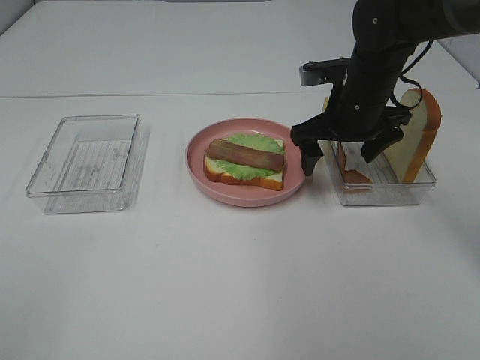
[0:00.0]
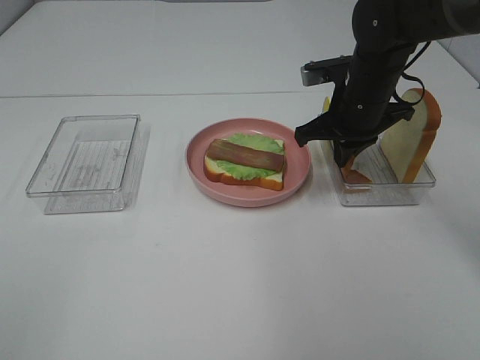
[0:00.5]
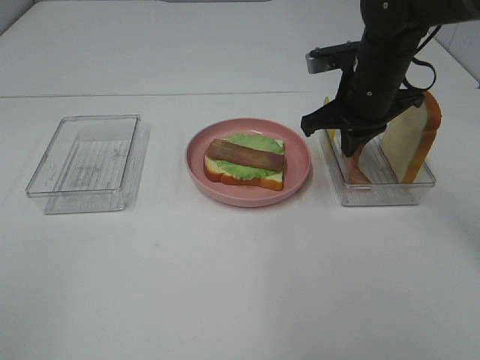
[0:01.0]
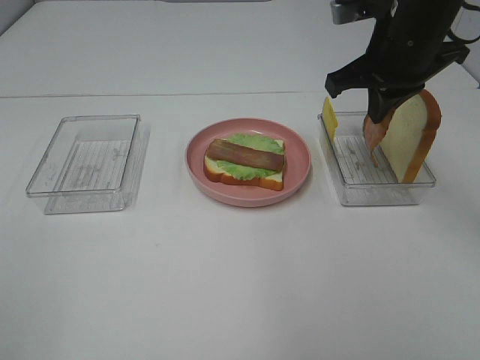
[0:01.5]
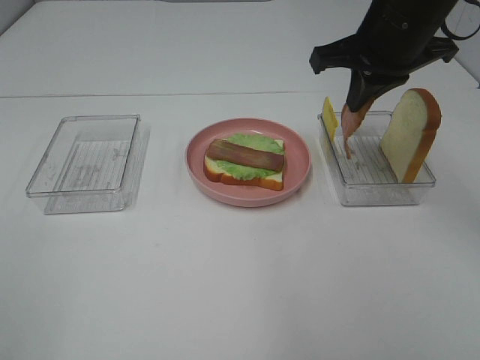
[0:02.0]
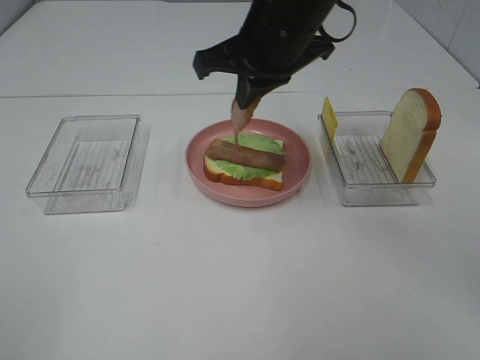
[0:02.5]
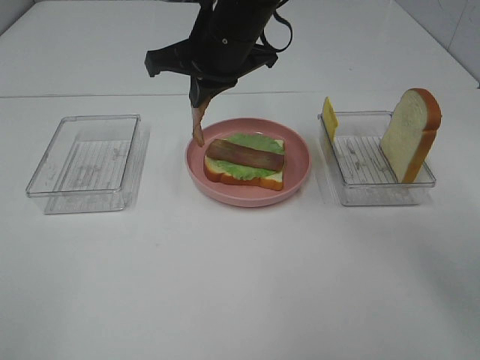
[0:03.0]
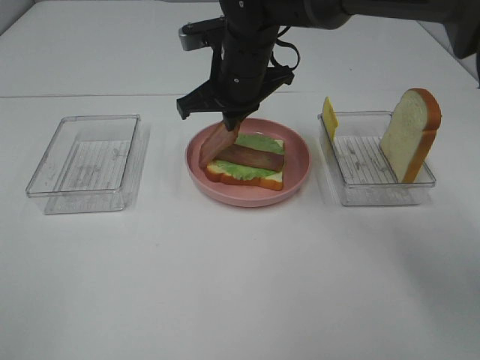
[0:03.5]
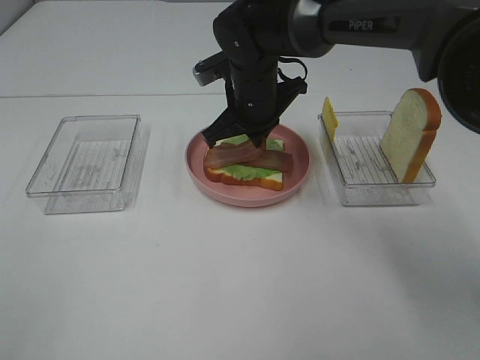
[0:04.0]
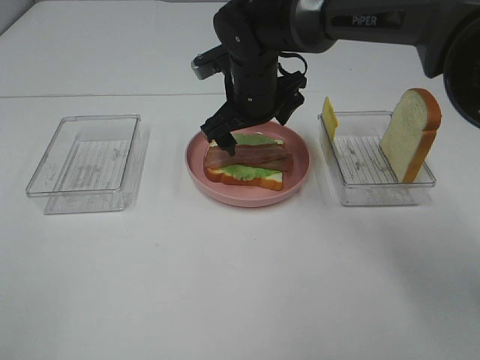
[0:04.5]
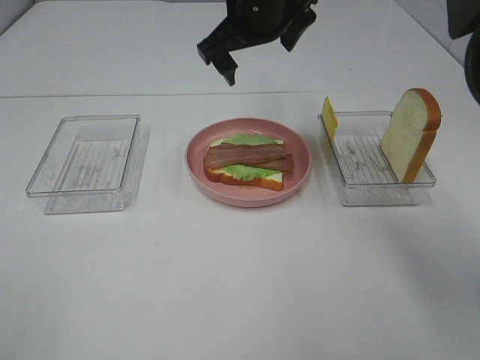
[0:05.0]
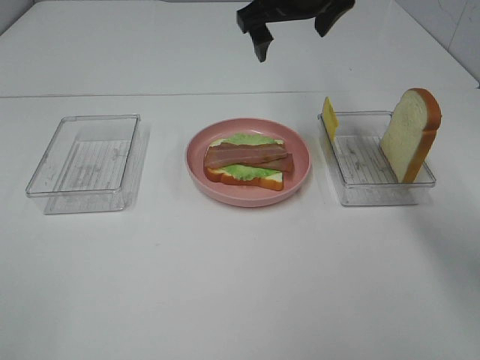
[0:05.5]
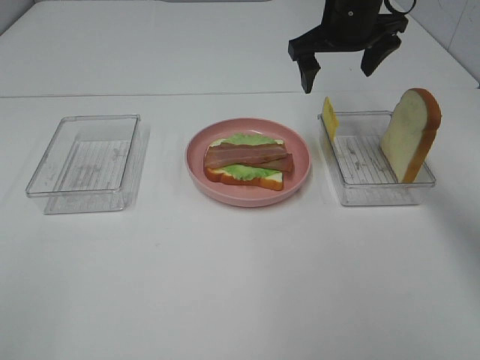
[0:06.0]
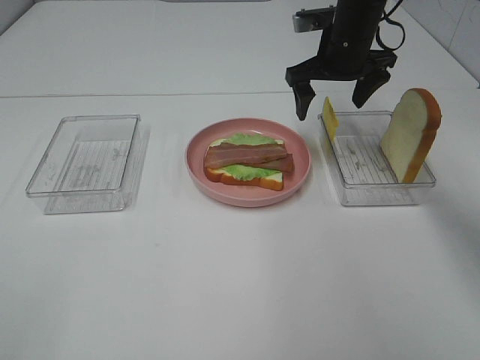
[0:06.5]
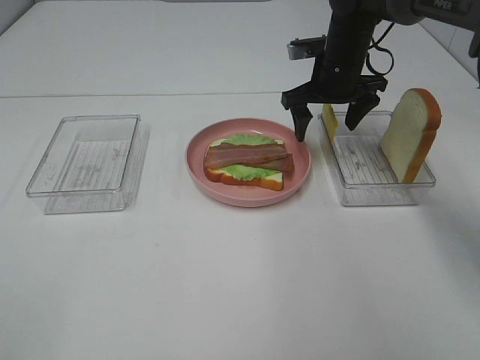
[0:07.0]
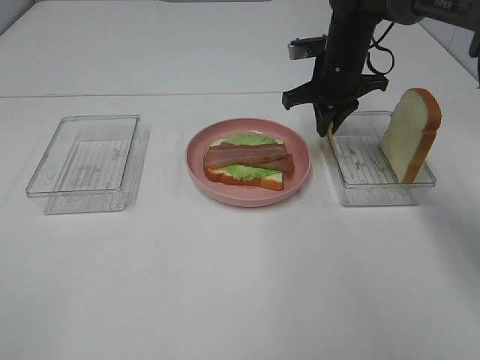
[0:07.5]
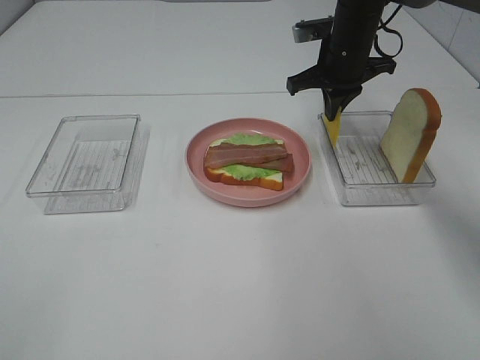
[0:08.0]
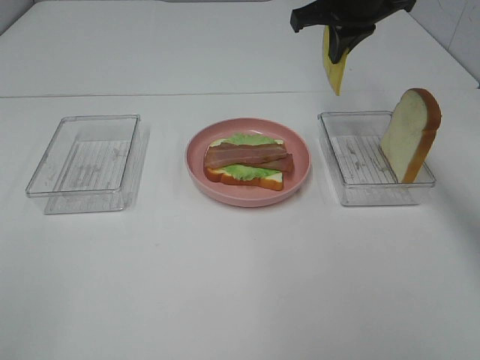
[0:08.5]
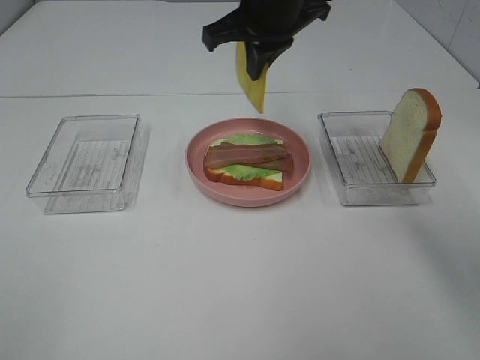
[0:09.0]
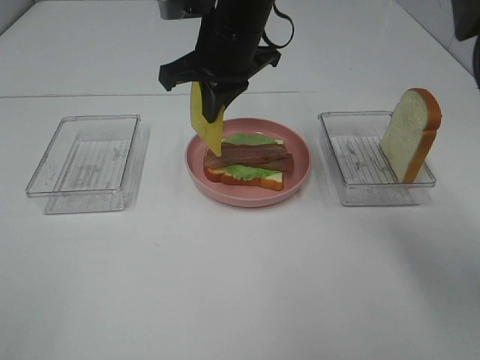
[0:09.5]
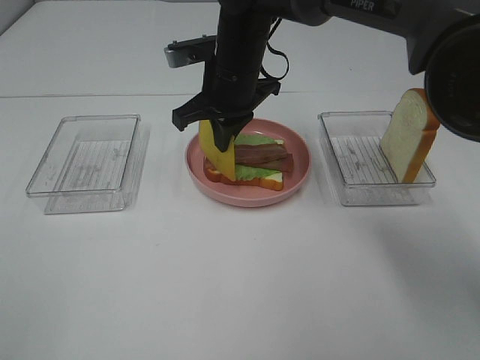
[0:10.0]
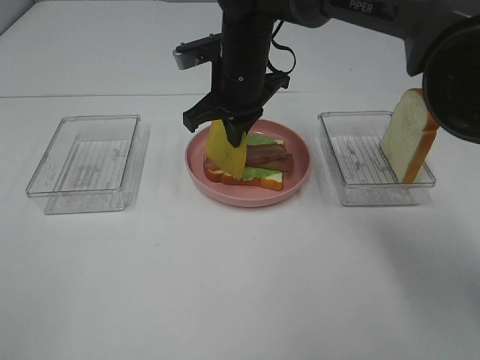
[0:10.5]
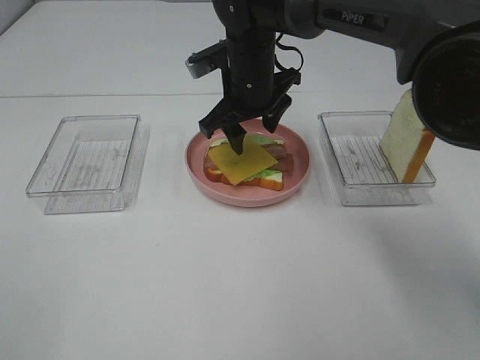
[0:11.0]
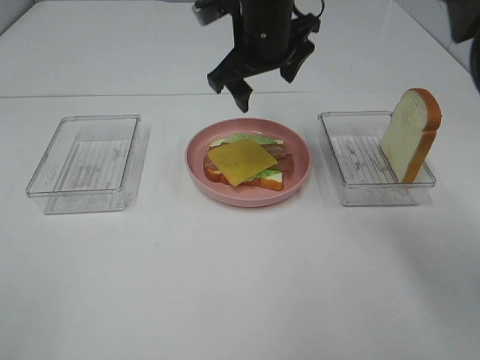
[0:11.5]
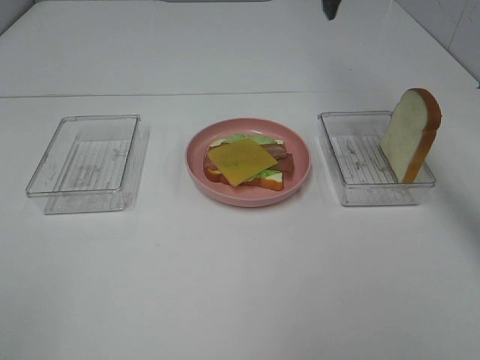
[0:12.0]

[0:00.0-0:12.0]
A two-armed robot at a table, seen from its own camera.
Task of the whole recording: Make sandwiches.
Step, 0:01.0 to 0:04.5: Right hand:place bacon on bacon.
Step, 0:05.0 to 0:08.0: Right hand:grab the cheese slice.
Step, 0:08.5 to 0:11.0: Right hand:place the cheese slice on top of the bacon.
0:00.0 to 0:02.0: The right gripper shifts roughly 10 cm upward, and closes its fingers.
0:02.0 to 0:04.0: The right gripper moves to the left, downward and forward, about 20 cm.
0:04.0 to 0:06.0: The right gripper moves to the right, upward and forward, some 15 cm, and opens up.
0:06.0 to 0:08.0: The right gripper closes.
0:08.0 to 0:10.0: The right gripper shifts about 15 cm to the left and backward.
0:10.0 to 0:12.0: The right gripper shifts roughly 20 cm upward and to the right, and opens.

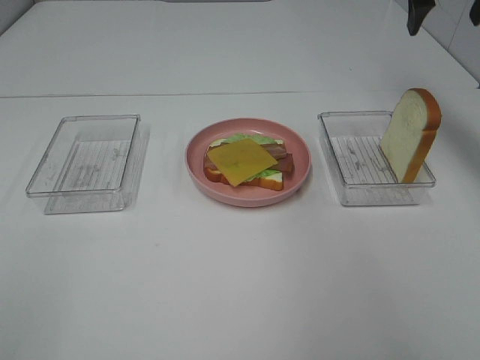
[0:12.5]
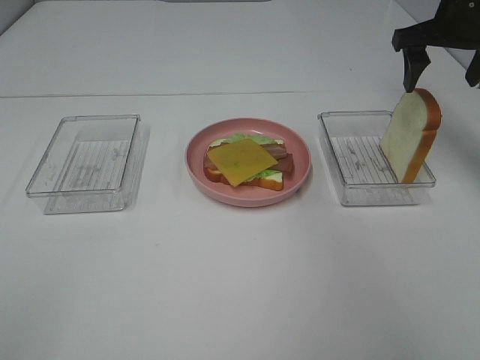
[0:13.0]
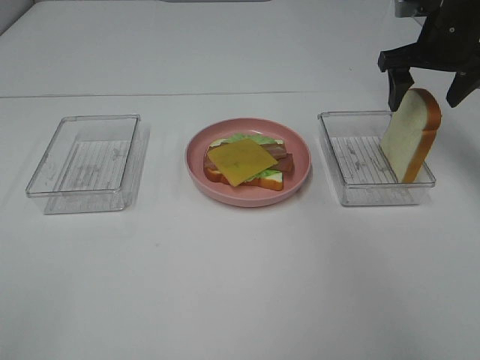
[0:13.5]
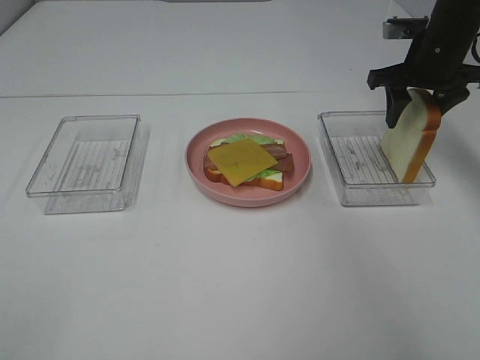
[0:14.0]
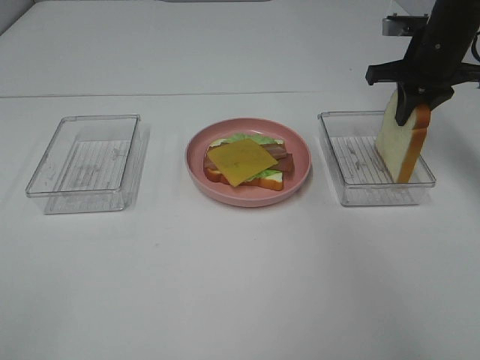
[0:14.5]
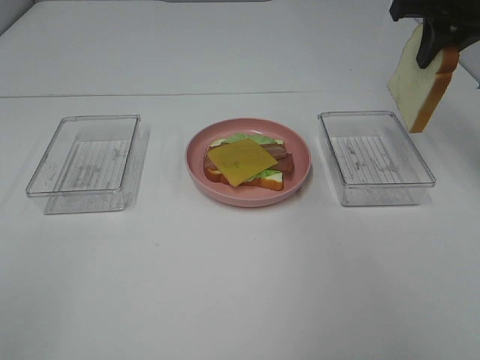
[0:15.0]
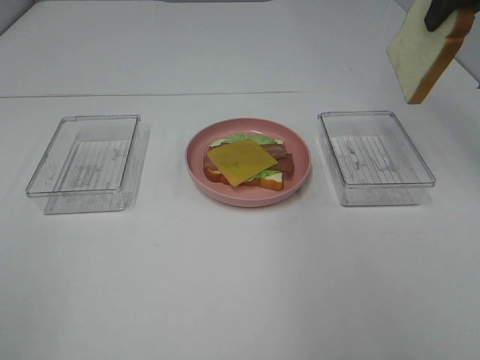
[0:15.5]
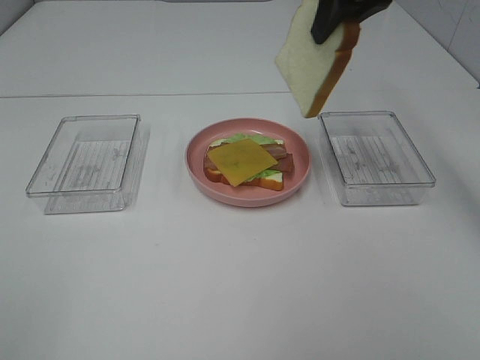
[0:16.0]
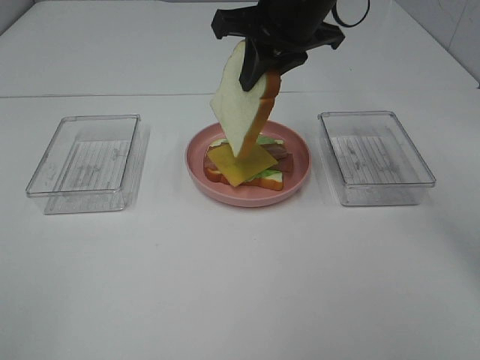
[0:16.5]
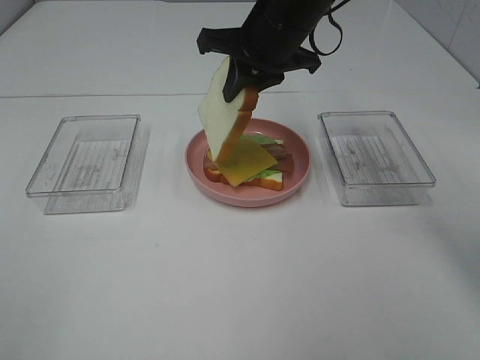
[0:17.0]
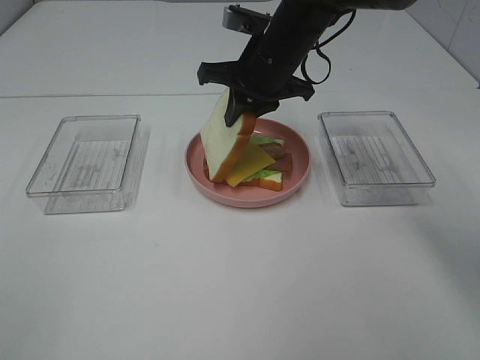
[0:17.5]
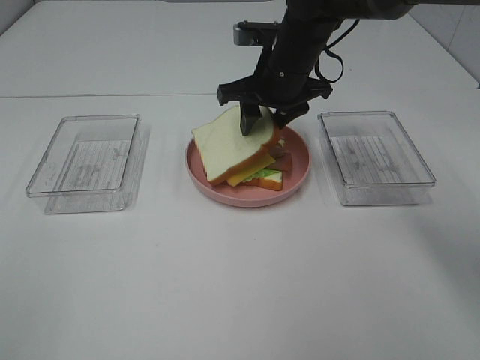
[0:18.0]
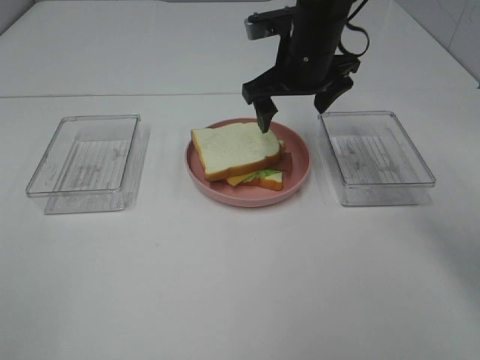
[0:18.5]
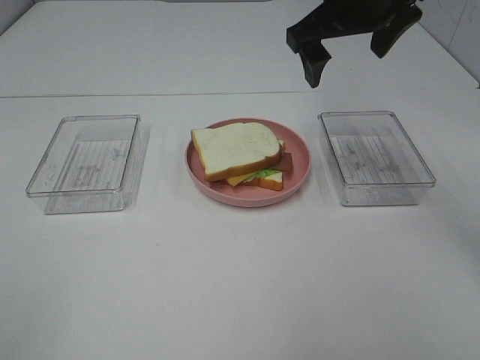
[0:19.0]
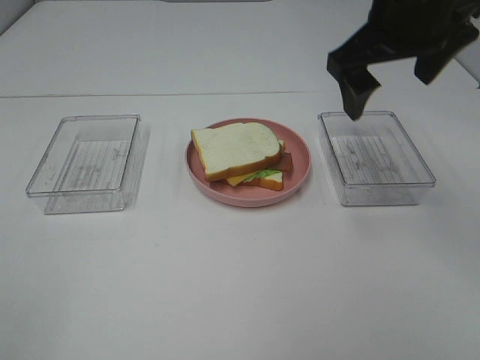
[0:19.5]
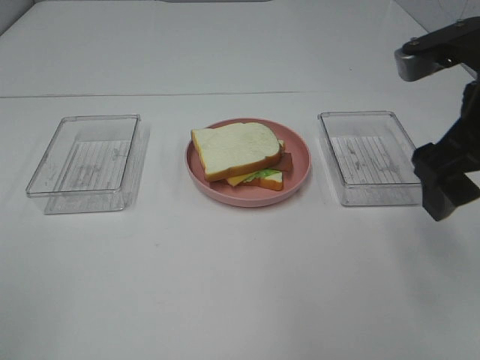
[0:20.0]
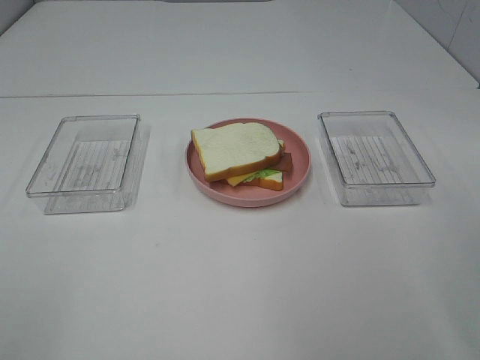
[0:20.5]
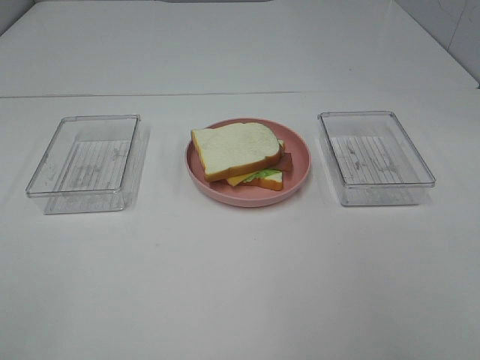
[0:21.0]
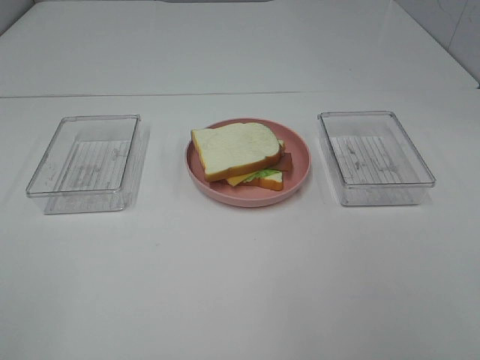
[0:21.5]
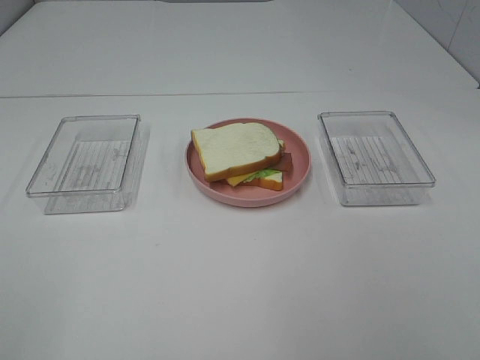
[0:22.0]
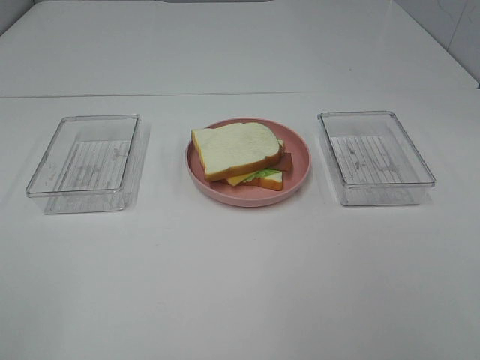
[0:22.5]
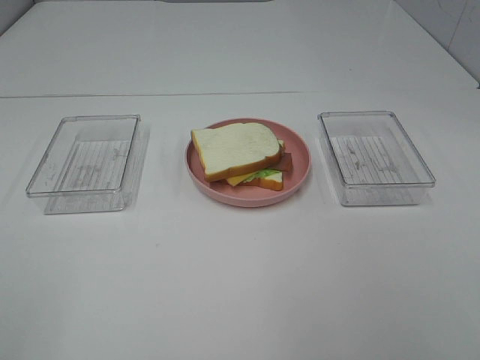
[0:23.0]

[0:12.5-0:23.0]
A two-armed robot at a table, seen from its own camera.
Task of the whole recording: Make sandwiches.
Step, 0:12.5 to 0:14.0: Right hand:grab the bread slice.
Step, 0:14.5 to 0:18.0: Right hand:place the bread slice on the cheese slice.
0:12.5 to 0:14.5: The right gripper heads downward, covering about 10 cm, and closes.
0:14.5 to 0:16.5: The right gripper shifts roughly 20 cm to the left.
0:16.5 to 0:19.0: The right gripper heads to the right, covering roughly 5 cm, travels downward and back again, approximately 10 cm each way, and opens up.
0:19.0 to 0:21.0: The right gripper shifts approximately 35 cm backward and to the right.

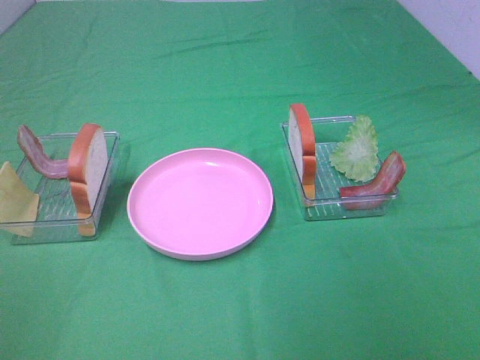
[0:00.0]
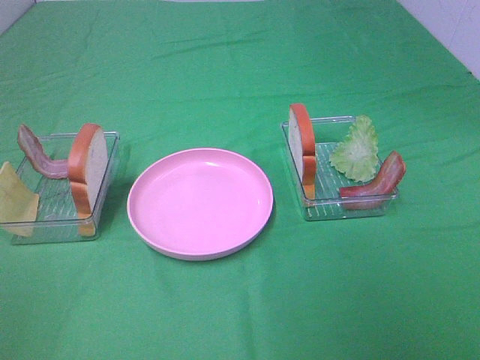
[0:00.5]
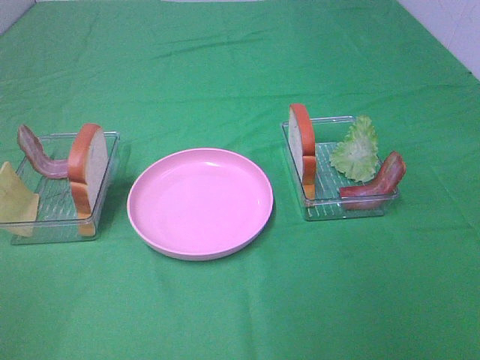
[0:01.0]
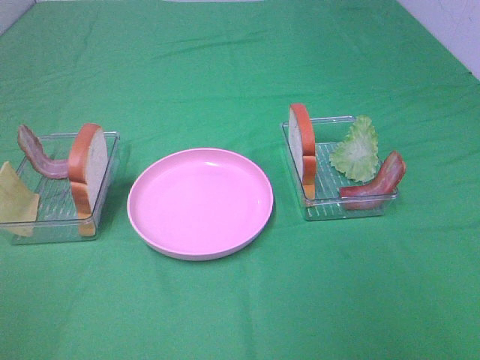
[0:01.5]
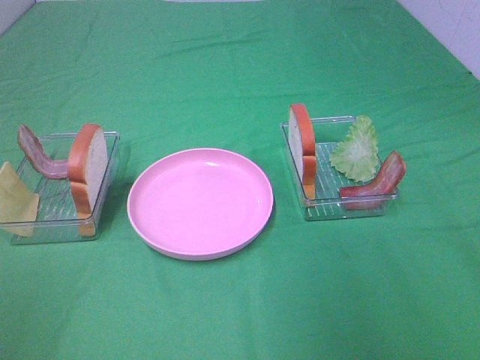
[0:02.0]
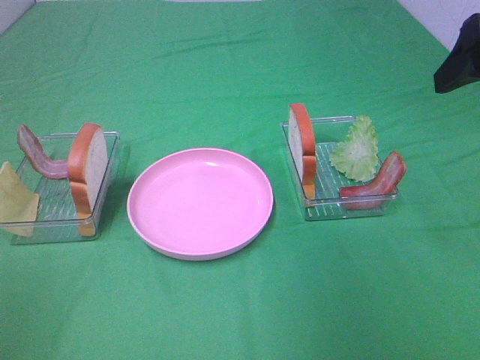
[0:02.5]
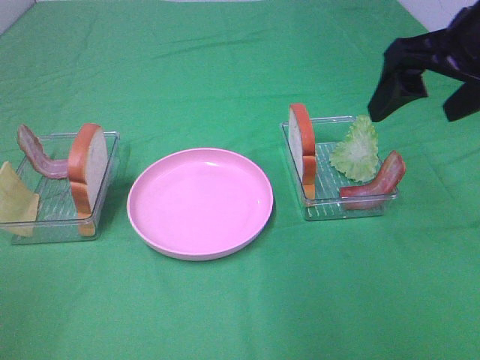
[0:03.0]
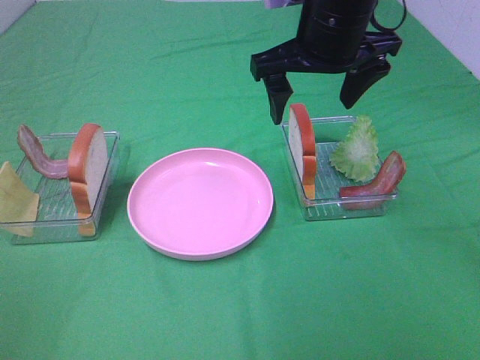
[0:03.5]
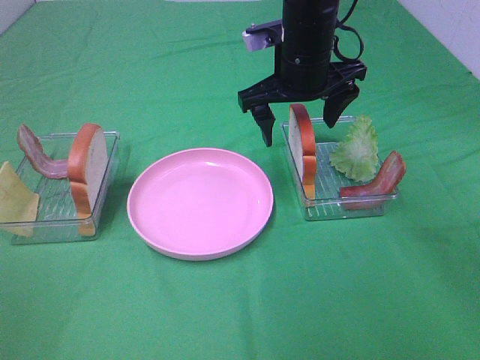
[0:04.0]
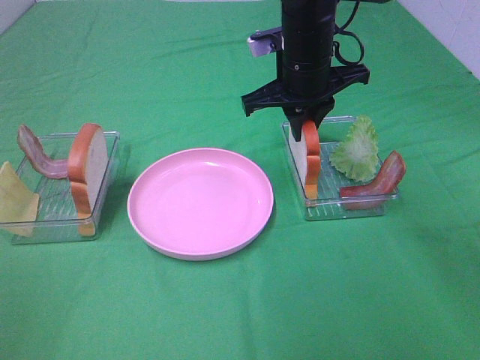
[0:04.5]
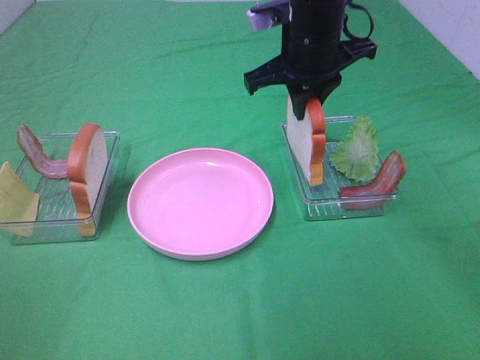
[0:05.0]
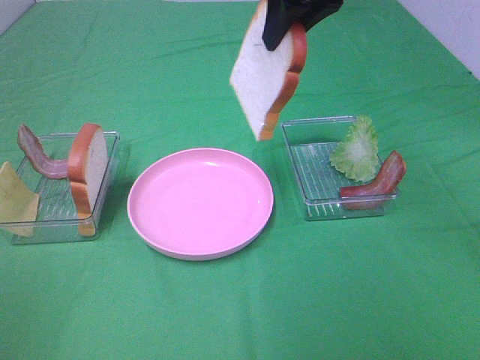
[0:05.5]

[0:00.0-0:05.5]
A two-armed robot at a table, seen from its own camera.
Task of the whole recording: Make sandwiches.
Step, 0:00.0 to 0:04.5: Right hand:grab the bread slice.
0:02.0 to 0:03.5: The right gripper shifts about 25 cm forward and to the left.
0:03.5 to 0:05.5: The right gripper moves upward, approximately 10 cm, and closes its fingers.
